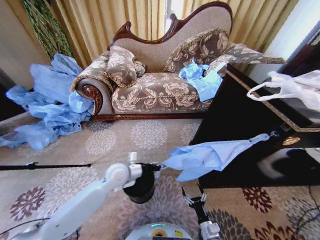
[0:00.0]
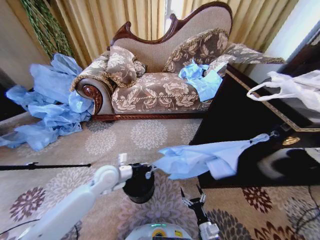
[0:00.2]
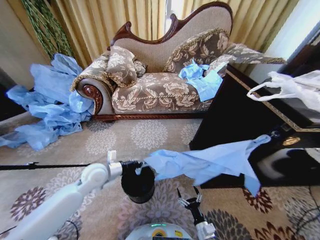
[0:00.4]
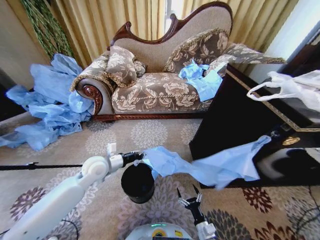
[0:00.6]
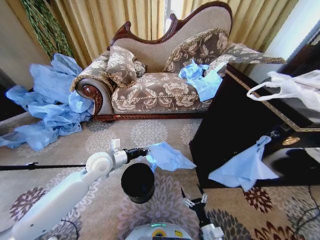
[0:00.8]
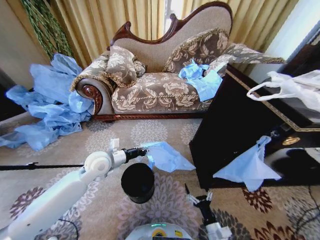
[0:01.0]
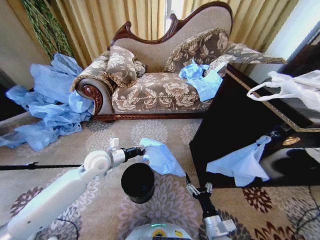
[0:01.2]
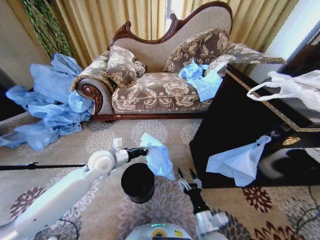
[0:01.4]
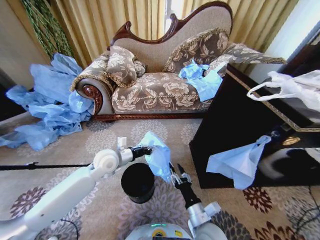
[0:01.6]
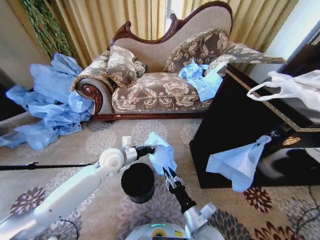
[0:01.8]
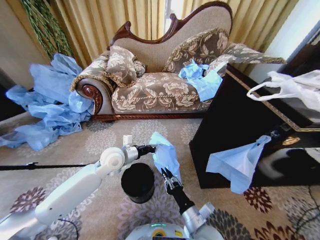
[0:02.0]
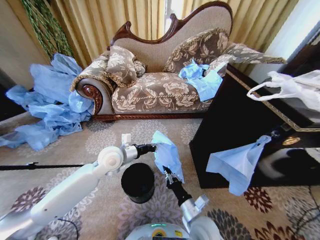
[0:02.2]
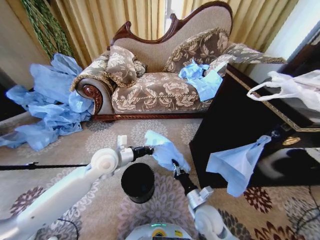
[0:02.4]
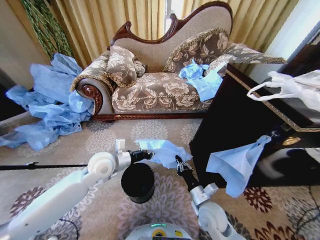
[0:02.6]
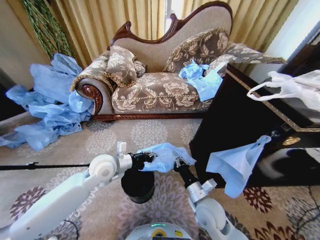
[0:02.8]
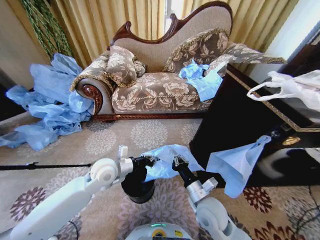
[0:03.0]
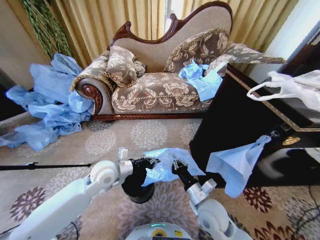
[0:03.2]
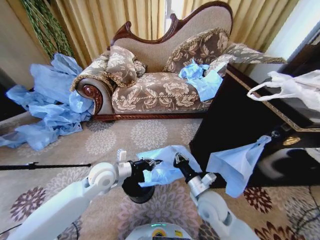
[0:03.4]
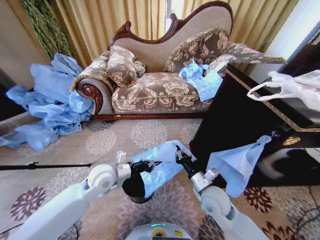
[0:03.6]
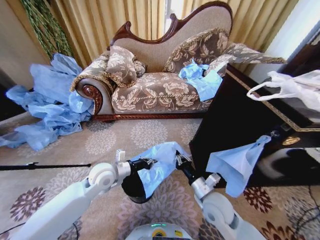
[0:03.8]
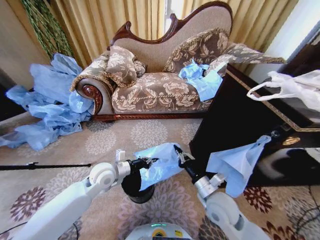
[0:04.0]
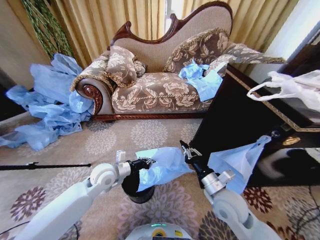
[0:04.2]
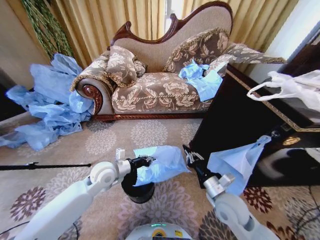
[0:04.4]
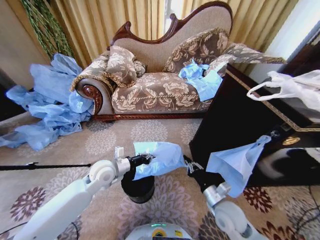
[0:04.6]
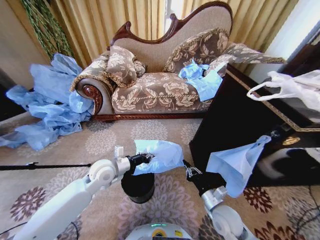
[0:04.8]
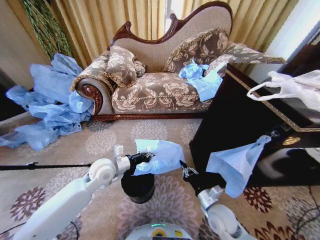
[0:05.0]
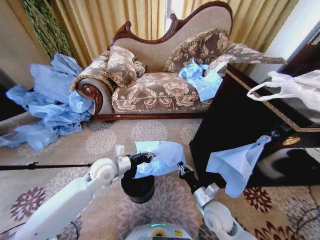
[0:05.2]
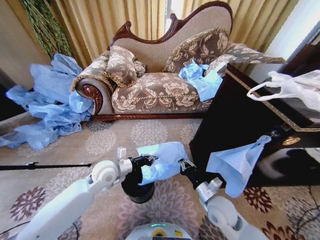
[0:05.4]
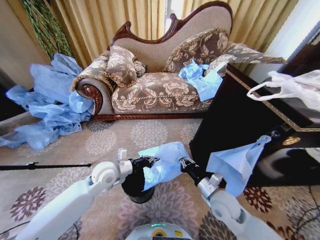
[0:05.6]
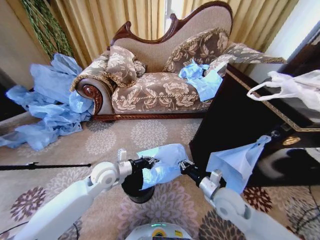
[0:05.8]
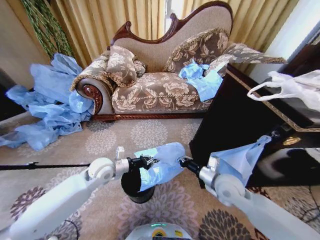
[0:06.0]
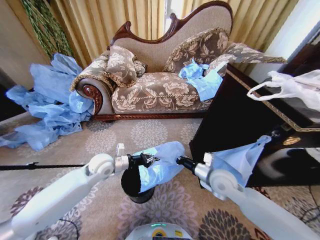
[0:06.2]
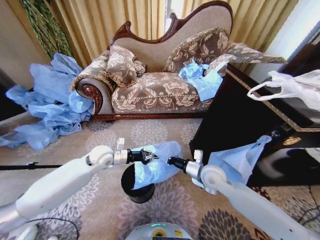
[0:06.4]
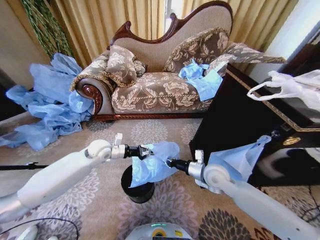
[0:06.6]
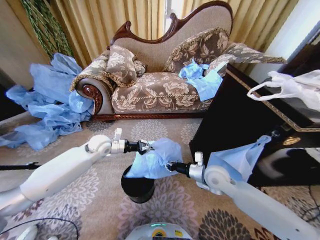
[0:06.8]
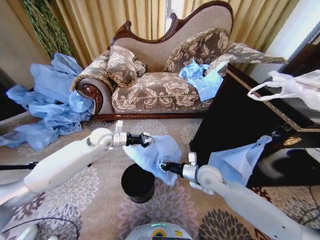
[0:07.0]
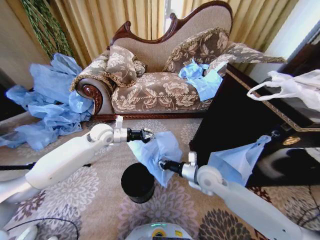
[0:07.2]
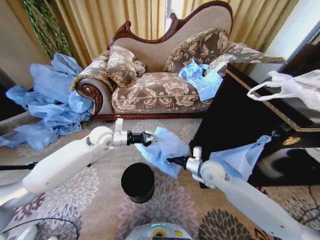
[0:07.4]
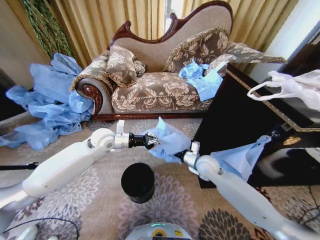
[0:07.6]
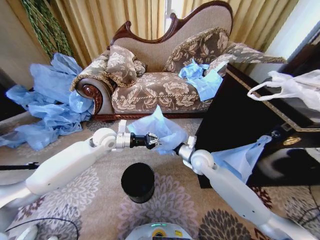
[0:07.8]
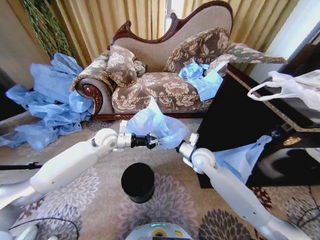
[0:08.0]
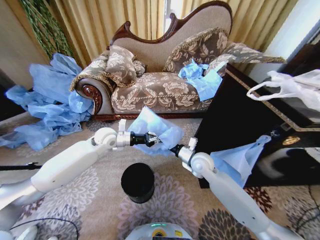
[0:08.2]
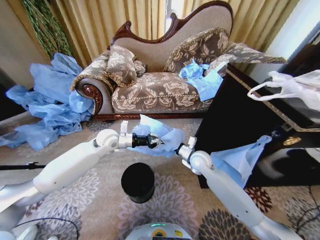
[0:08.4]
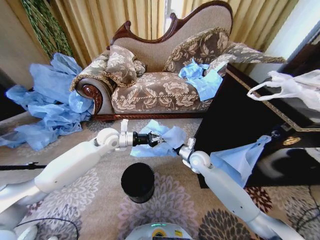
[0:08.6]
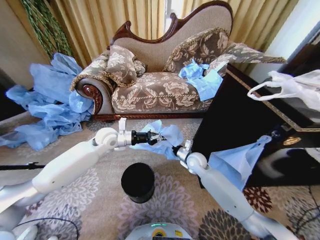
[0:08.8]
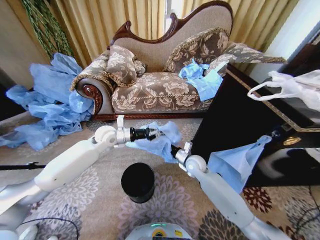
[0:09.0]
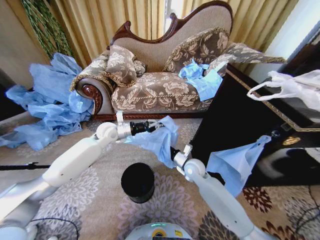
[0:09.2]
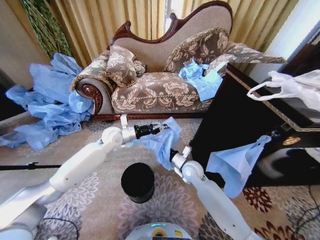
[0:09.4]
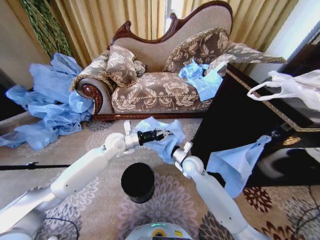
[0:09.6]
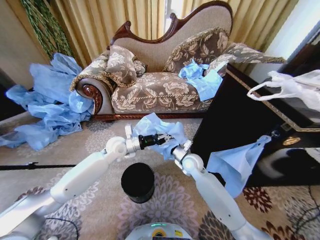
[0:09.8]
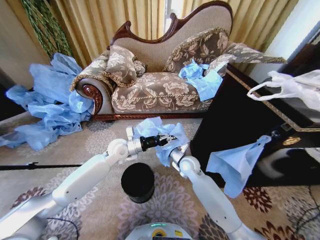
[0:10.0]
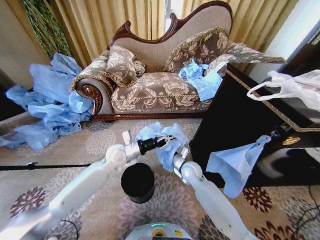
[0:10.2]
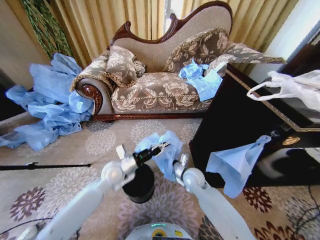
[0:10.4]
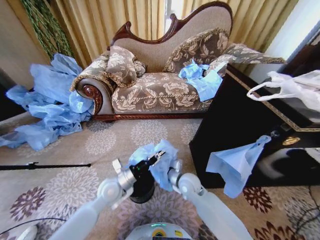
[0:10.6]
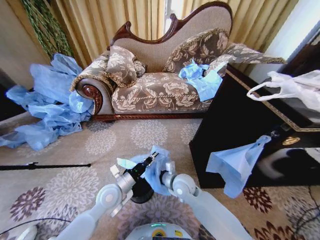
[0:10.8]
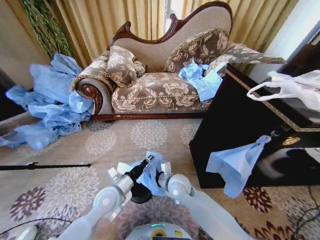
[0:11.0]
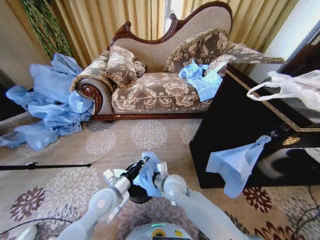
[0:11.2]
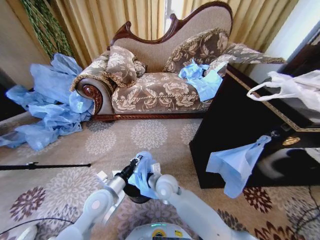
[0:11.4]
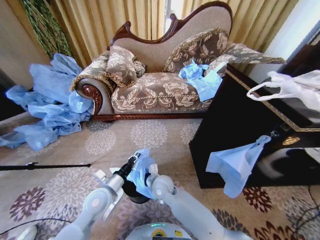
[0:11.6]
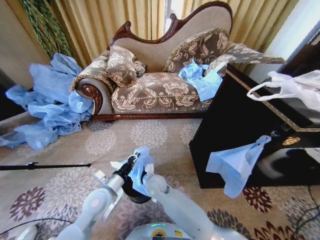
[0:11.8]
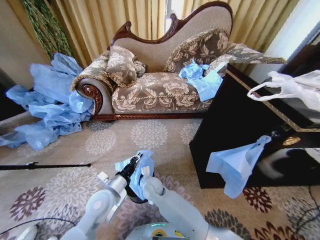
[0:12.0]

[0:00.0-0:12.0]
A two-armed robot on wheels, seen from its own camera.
Task of the whole recording: Place a garbage bag over the trash bin.
0.0 to 1.6 s: The right gripper is displaced upward and to the left by approximately 20 cm, and closes up. Meanwhile the left gripper shifts some 5 cm upward.
1.6 to 3.0 s: The right gripper shifts roughly 5 cm forward, and closes.
3.0 to 4.4 s: The right gripper moves to the right, about 5 cm.
4.4 to 6.0 s: The right gripper is displaced forward by some 5 cm, and moves some 10 cm downward and comes back.
6.0 to 7.6 s: The left gripper heads forward and upward, covering about 15 cm, while the right gripper travels forward by about 10 cm.
7.6 to 9.0 s: The right gripper shifts by roughly 5 cm.
9.0 to 10.4 s: The left gripper goes roughly 15 cm backward, downward and to the right; the right gripper travels backward by roughly 5 cm.
10.4 to 12.0 s: The left gripper shifts about 10 cm backward; the right gripper is displaced to the left by some 20 cm.

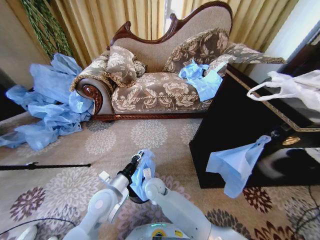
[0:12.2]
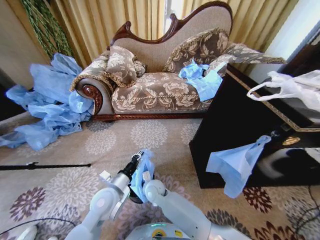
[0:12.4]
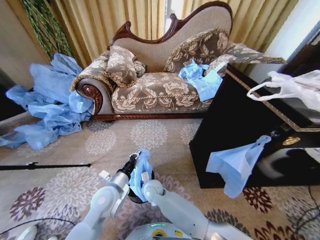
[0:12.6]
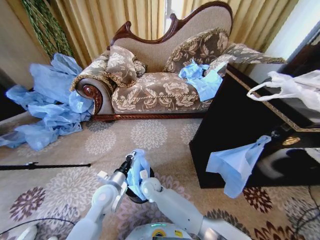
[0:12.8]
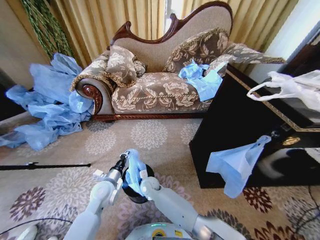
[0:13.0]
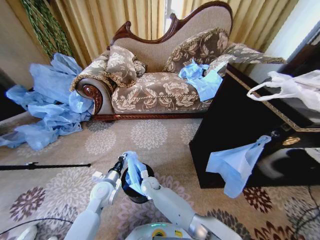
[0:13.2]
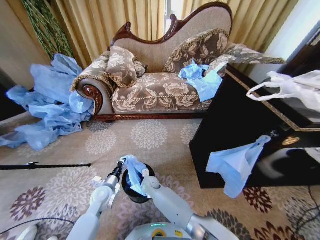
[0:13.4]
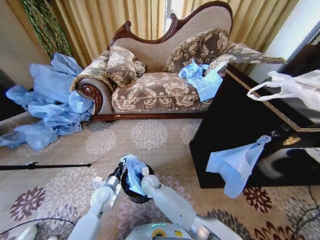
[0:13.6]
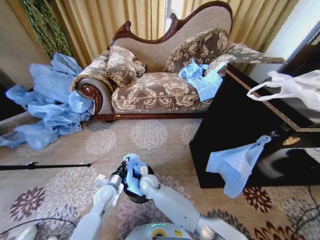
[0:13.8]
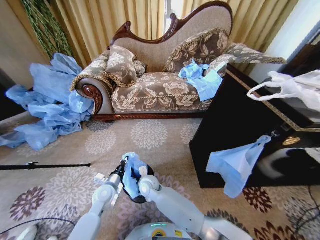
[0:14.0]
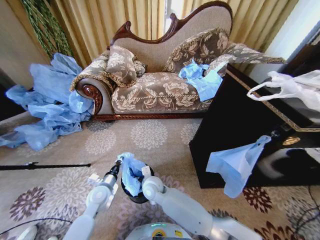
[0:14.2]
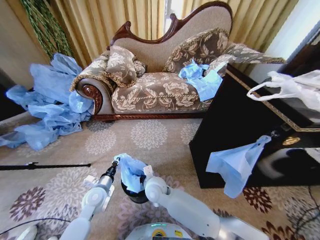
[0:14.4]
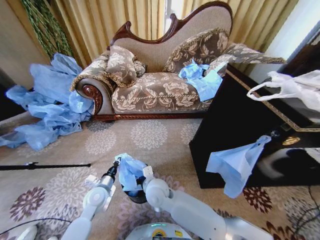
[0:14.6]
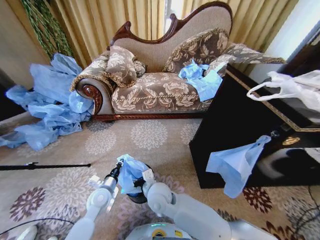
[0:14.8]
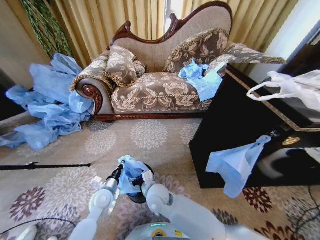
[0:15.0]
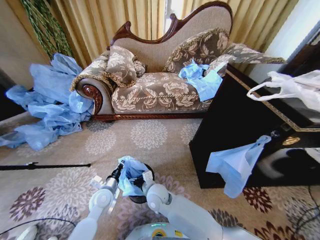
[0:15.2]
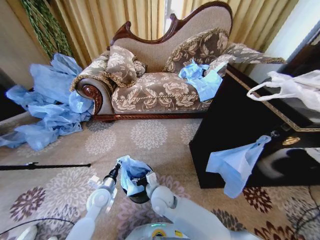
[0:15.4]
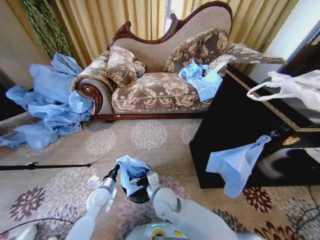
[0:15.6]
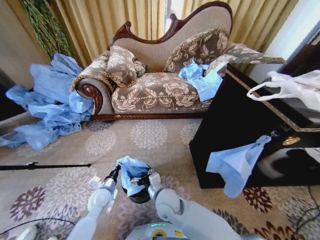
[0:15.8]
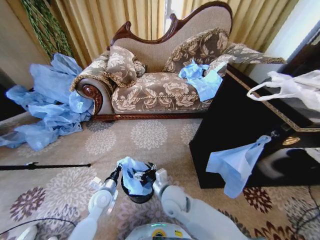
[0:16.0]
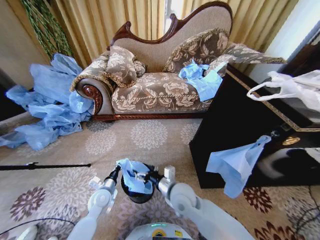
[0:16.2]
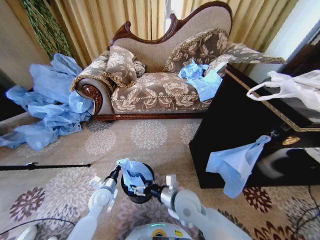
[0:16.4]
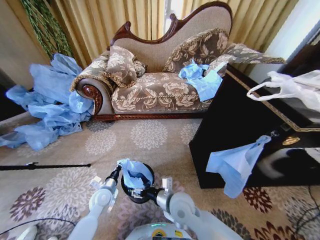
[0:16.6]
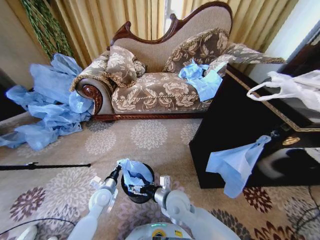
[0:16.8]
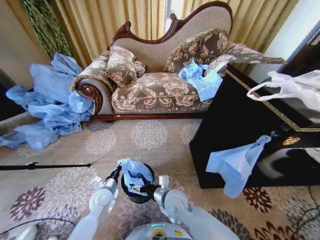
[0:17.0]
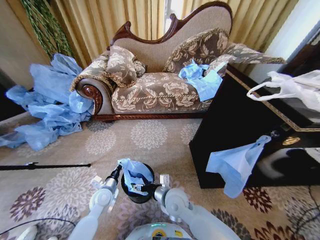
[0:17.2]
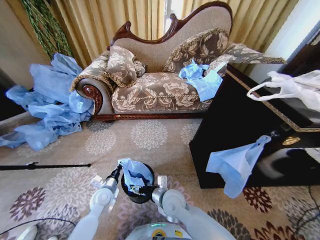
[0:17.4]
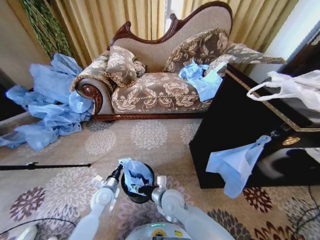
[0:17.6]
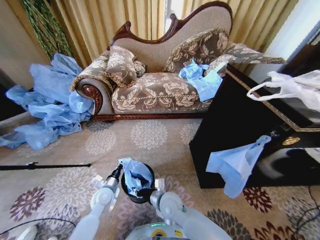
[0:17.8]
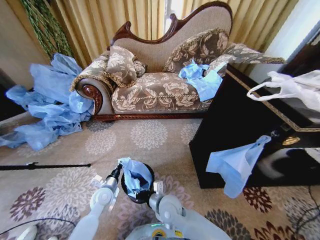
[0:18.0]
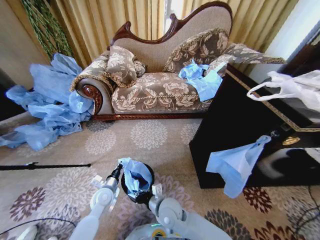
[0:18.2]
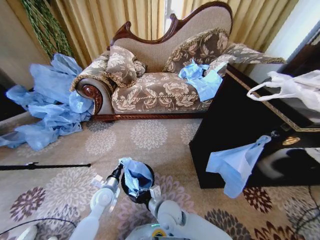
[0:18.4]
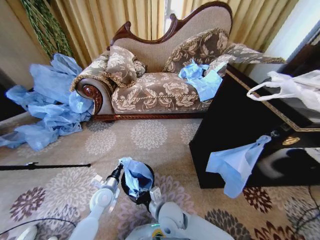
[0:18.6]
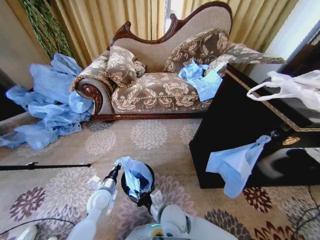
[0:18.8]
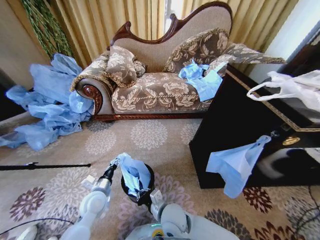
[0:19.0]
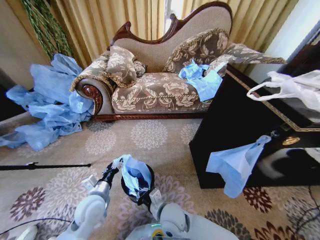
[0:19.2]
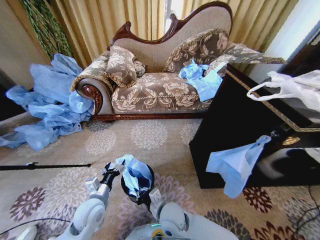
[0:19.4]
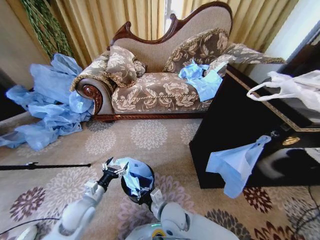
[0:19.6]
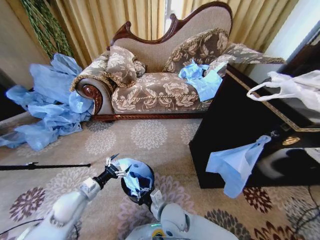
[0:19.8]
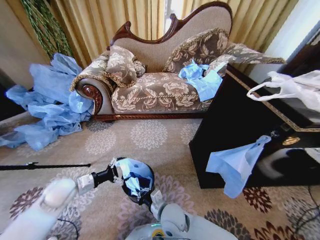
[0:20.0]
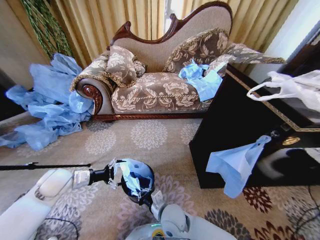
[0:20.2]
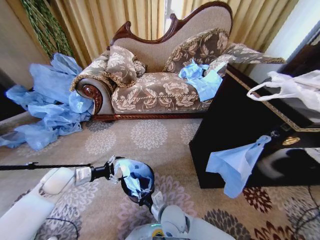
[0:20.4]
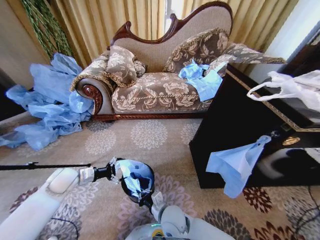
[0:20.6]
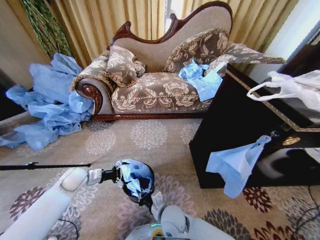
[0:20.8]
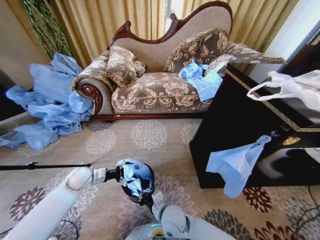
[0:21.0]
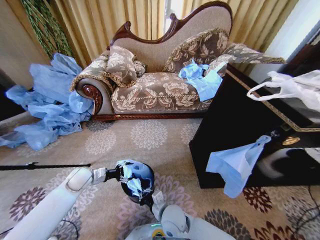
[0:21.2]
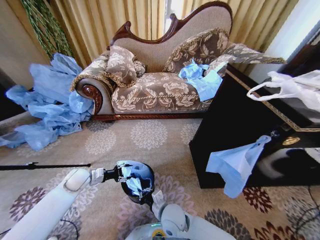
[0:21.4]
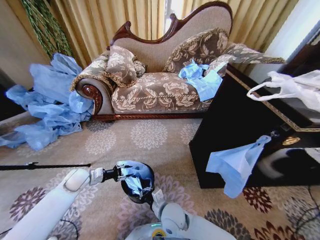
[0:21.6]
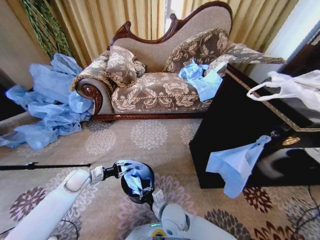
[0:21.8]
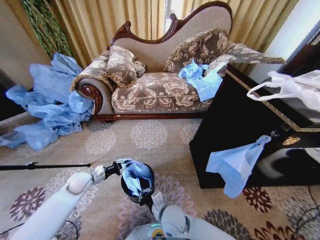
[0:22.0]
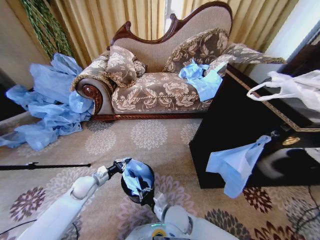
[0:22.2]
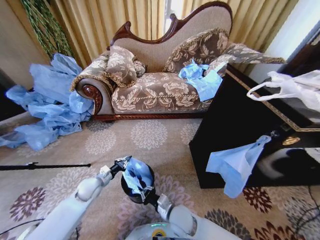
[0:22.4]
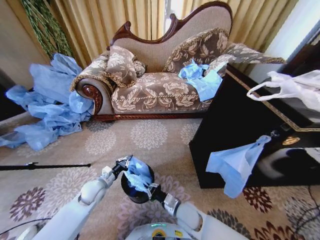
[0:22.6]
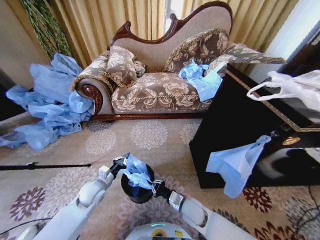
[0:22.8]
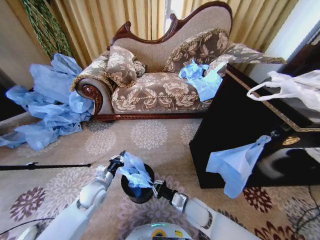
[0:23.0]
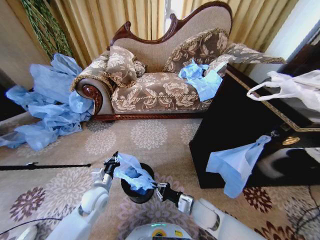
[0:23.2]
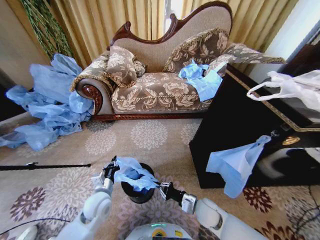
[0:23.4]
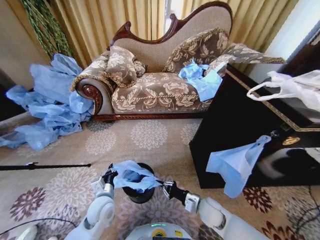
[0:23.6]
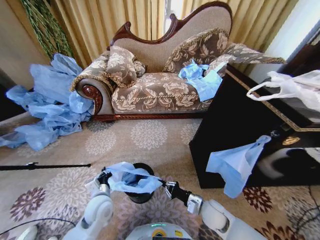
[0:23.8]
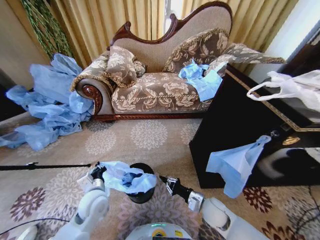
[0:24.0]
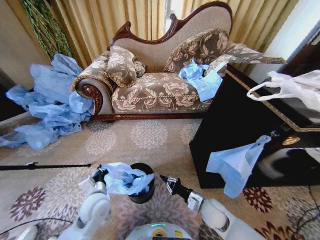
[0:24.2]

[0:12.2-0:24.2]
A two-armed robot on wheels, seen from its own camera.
Task of the whole recording: Place a garbage bag over the trash bin.
12.2 to 13.8 s: The left gripper is displaced downward and forward by approximately 10 cm. The right gripper reaches approximately 10 cm downward, then returns.
13.8 to 15.2 s: The right gripper goes roughly 10 cm backward and upward, and opens.
15.2 to 16.6 s: The right gripper shifts approximately 10 cm to the right.
16.6 to 18.2 s: The right gripper is displaced downward by some 5 cm, and closes up.
18.2 to 19.8 s: The left gripper shifts roughly 10 cm to the left and upward, and opens.
19.8 to 21.2 s: The left gripper travels forward by about 10 cm.
21.2 to 22.6 s: Both grippers travel together to the right, about 5 cm. The left gripper closes its fingers.
22.6 to 24.2 s: The right gripper moves to the right, about 10 cm. The left gripper travels backward, to the right and upward by some 10 cm.
